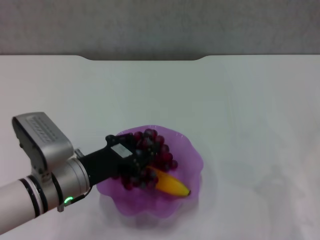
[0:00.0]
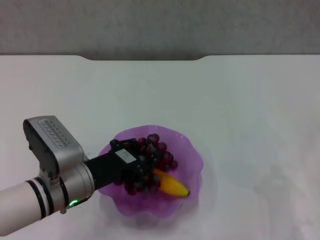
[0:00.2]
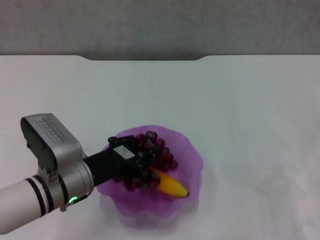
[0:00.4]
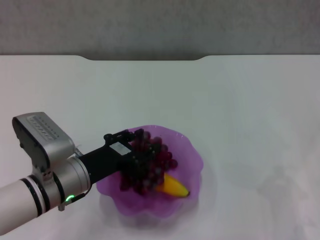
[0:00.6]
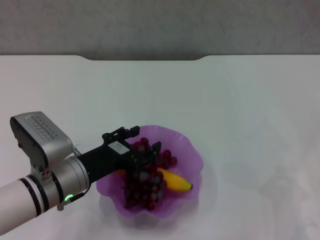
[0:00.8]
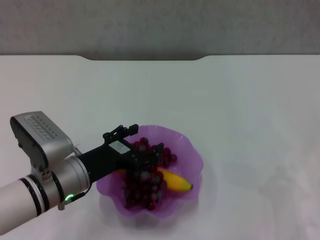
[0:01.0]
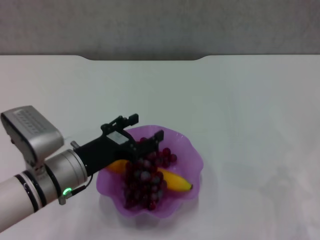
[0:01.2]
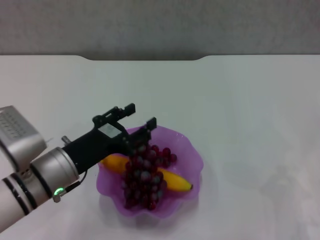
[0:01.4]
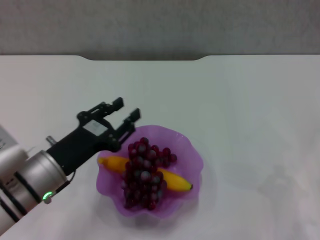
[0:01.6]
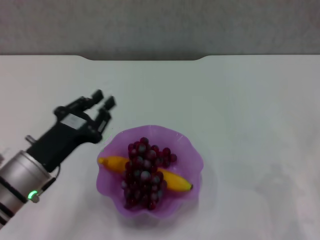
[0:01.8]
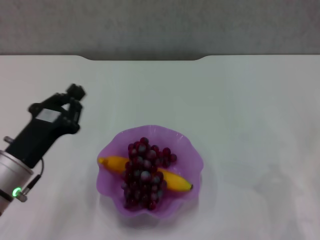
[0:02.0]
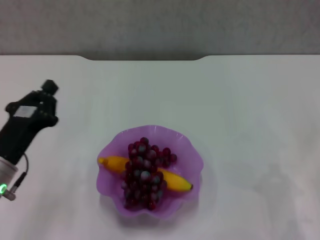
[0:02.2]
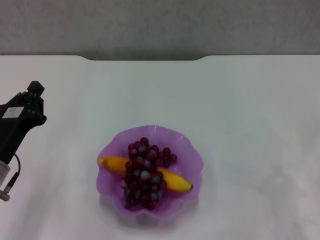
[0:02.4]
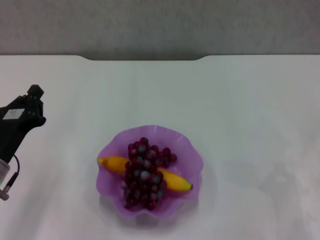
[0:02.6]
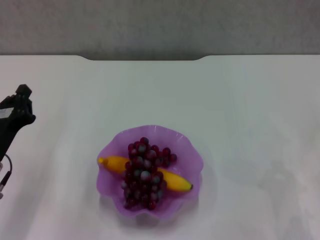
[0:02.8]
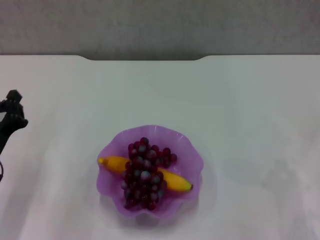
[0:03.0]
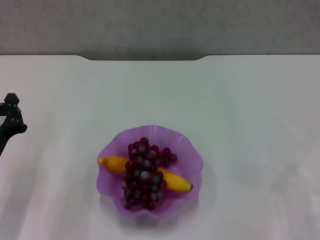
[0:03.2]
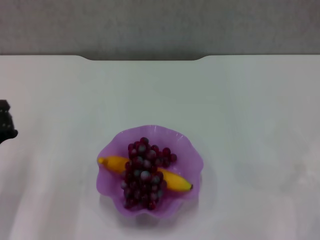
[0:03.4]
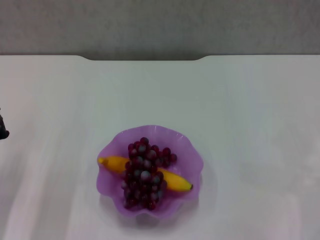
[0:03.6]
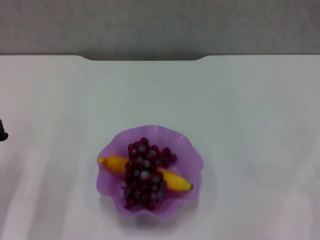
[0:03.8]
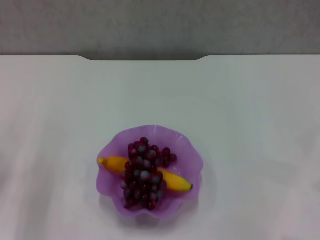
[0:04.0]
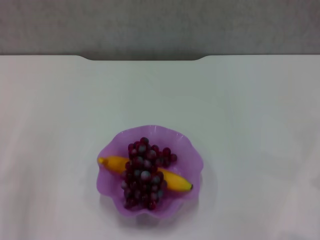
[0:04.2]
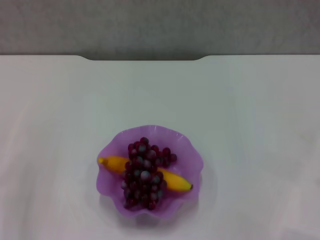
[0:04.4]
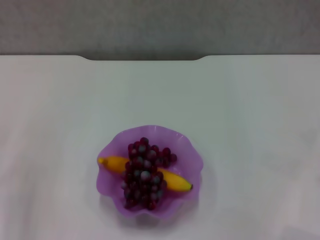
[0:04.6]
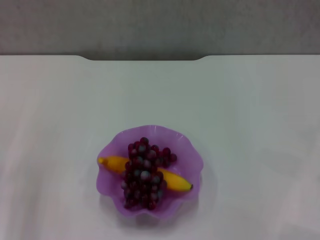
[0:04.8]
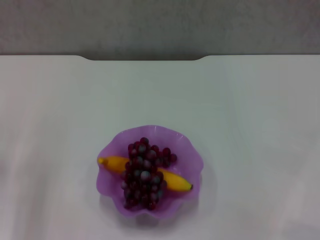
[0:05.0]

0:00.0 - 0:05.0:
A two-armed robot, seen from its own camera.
0:00.0 - 0:01.6: The left gripper opens up.
0:01.6 - 0:03.4: The left gripper goes approximately 10 cm to the left, and closes.
